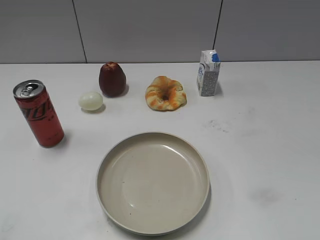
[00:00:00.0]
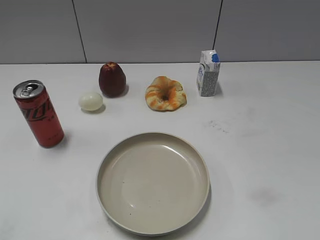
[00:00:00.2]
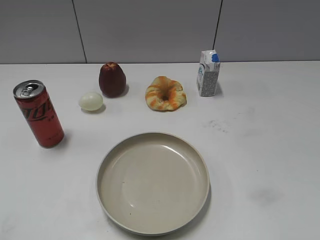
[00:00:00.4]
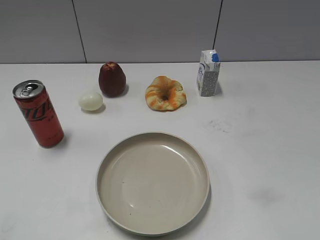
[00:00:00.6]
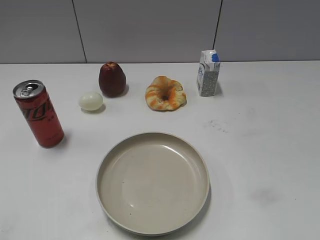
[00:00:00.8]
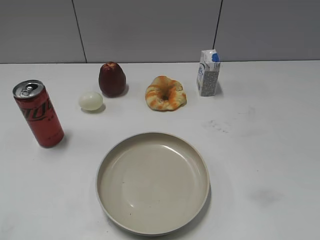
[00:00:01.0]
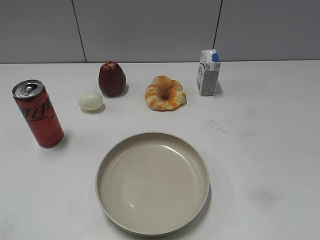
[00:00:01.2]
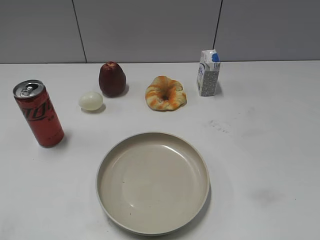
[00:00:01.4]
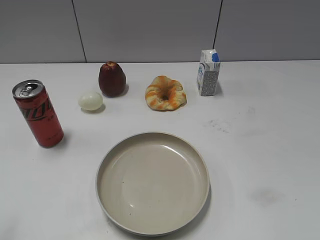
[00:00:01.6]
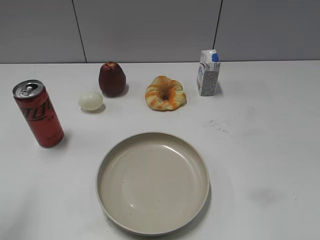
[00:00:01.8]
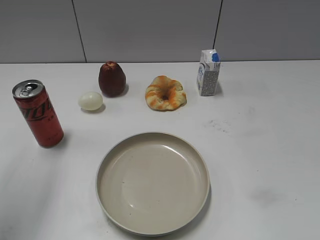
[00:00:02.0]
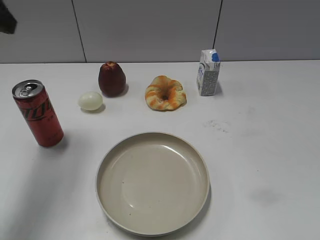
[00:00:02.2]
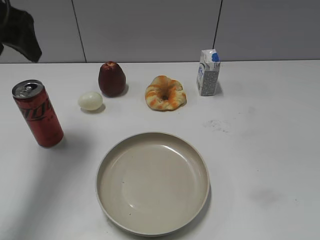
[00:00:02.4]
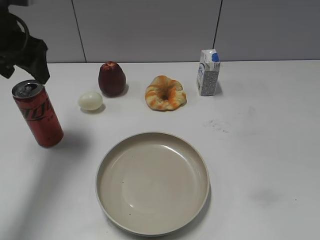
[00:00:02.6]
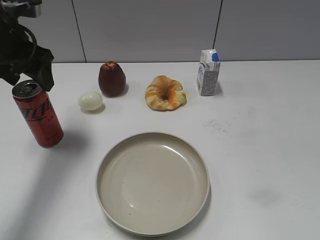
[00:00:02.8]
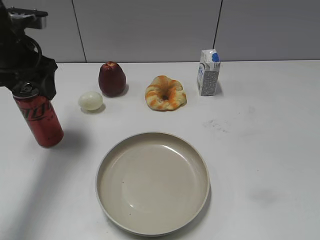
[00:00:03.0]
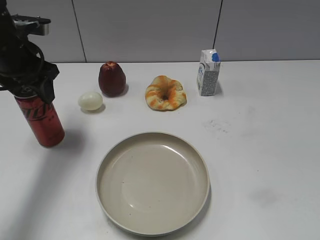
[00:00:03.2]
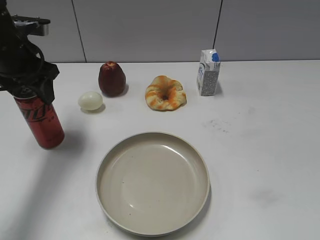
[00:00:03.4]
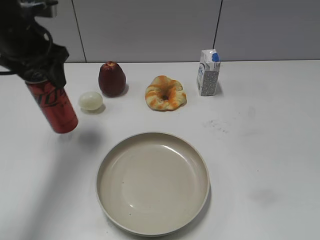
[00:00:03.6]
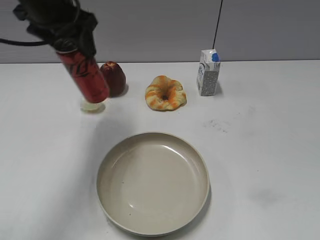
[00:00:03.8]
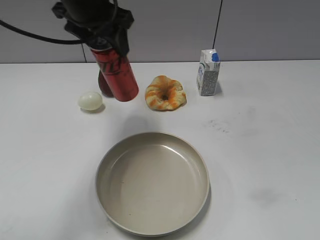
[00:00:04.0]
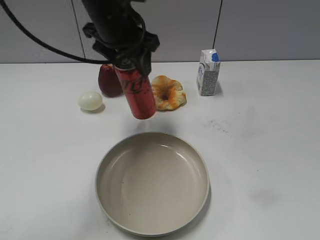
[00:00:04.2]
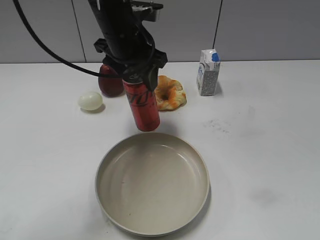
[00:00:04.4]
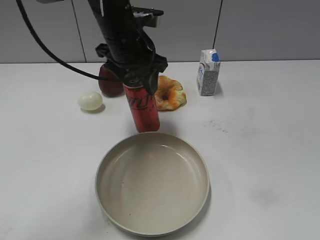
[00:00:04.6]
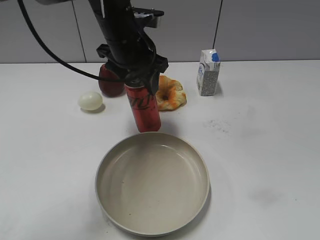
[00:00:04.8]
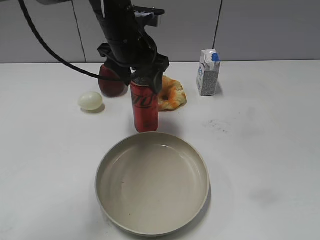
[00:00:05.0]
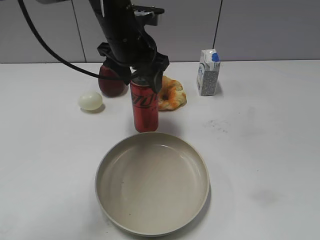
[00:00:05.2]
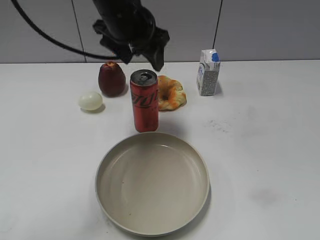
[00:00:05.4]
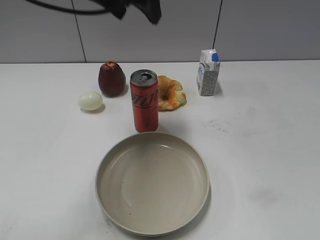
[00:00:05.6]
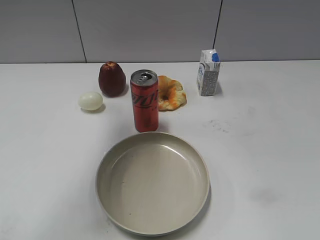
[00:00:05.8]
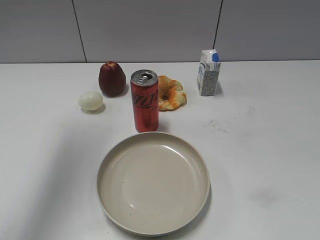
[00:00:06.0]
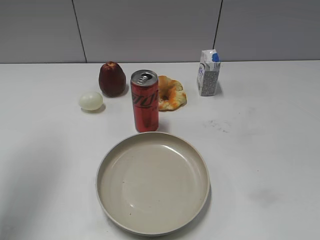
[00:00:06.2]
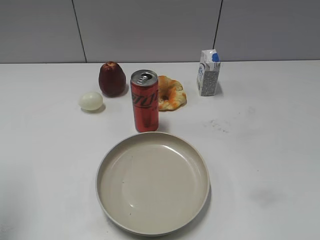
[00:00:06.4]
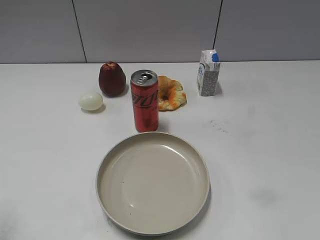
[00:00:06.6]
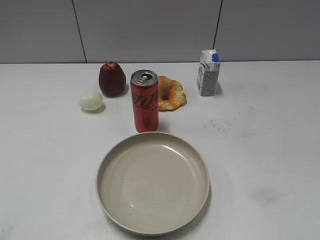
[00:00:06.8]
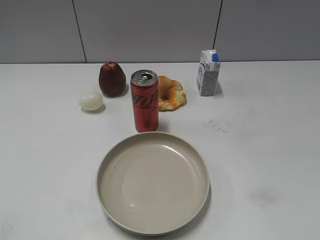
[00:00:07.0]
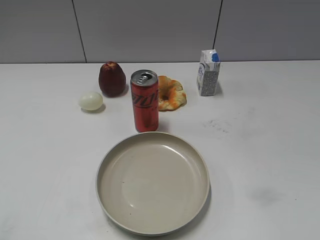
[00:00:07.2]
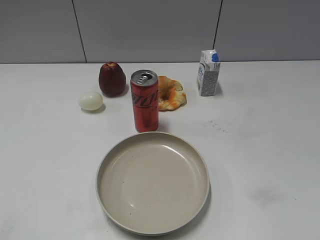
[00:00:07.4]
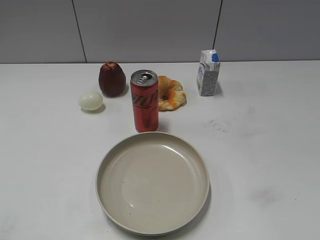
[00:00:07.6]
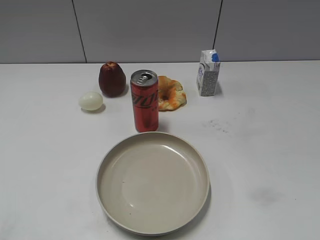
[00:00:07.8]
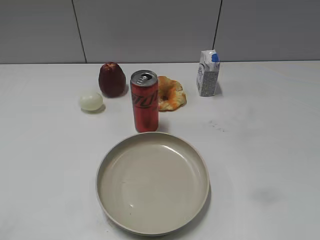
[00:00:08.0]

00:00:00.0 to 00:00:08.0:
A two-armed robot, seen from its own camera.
Step, 00:00:00.0 to 00:00:03.4: Grasp the cola with left gripper.
Step, 00:00:03.6 to 00:00:05.4: Place the cola on the table with left gripper.
00:00:01.6 to 00:00:03.2: The left gripper goes about 30 cm forward, and closes its fingers.
00:00:03.2 to 00:00:04.8: The left gripper heads to the right, covering some 20 cm.
00:00:04.8 to 00:00:06.4: The left gripper is displaced to the left and backward by about 30 cm, and opens.
00:00:06.4 to 00:00:08.0: The left gripper shifts about 20 cm backward.
